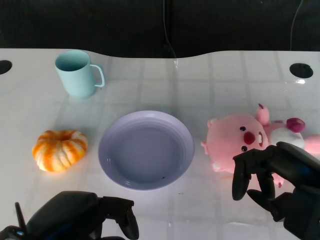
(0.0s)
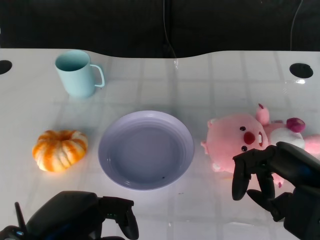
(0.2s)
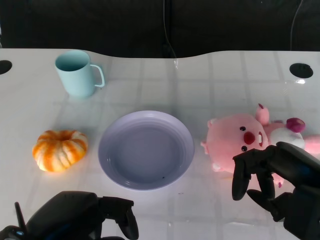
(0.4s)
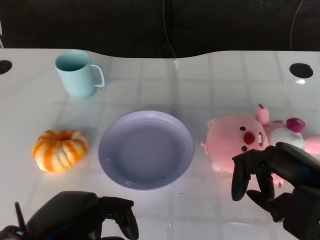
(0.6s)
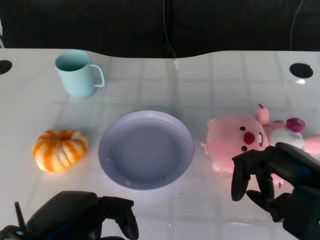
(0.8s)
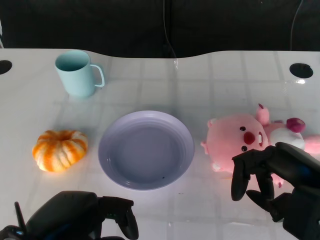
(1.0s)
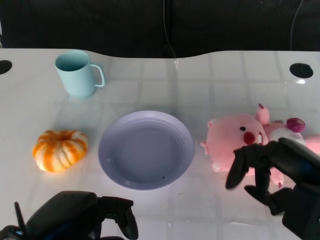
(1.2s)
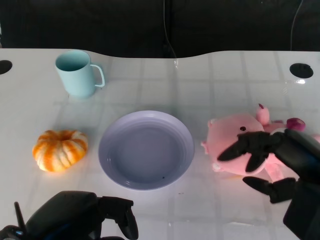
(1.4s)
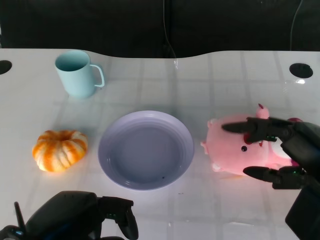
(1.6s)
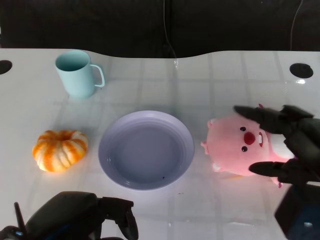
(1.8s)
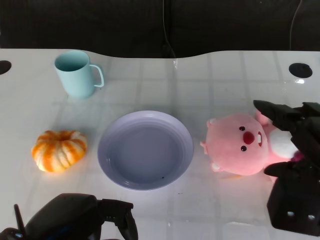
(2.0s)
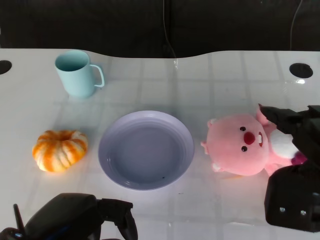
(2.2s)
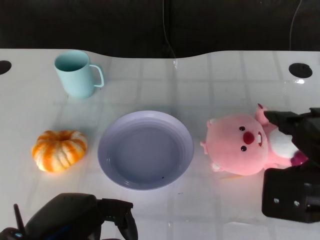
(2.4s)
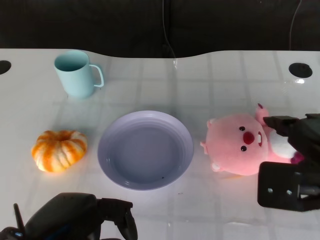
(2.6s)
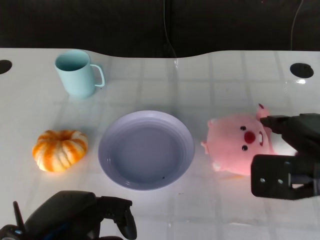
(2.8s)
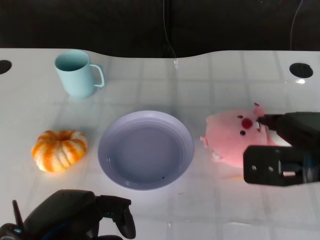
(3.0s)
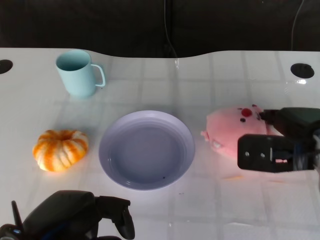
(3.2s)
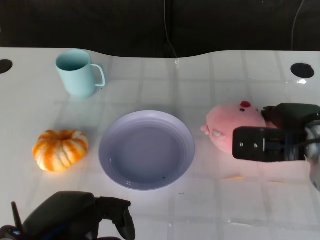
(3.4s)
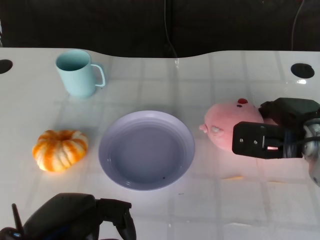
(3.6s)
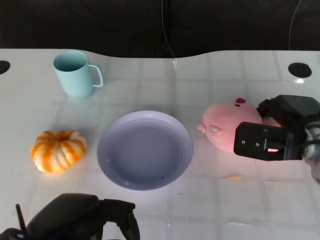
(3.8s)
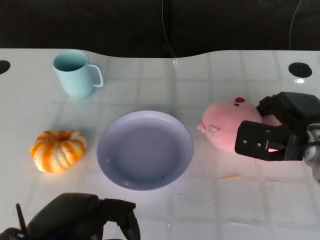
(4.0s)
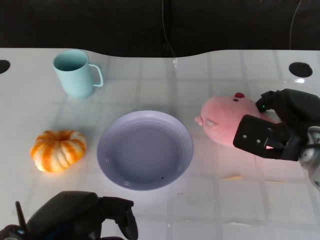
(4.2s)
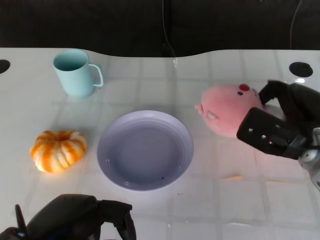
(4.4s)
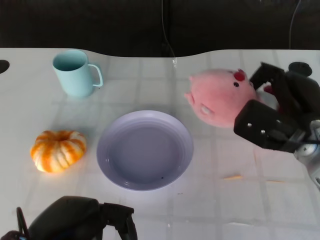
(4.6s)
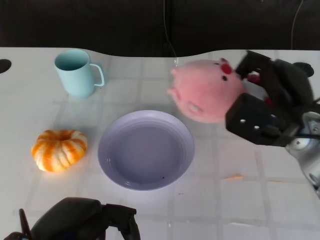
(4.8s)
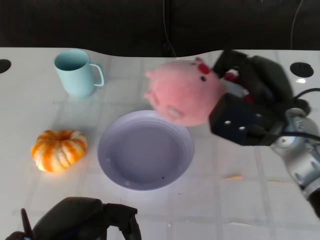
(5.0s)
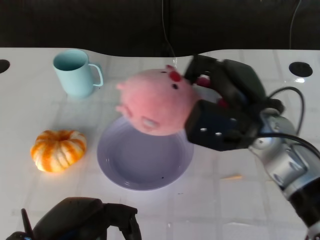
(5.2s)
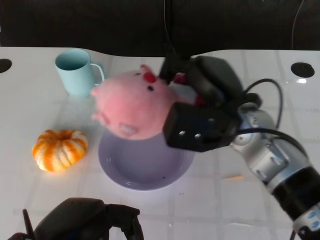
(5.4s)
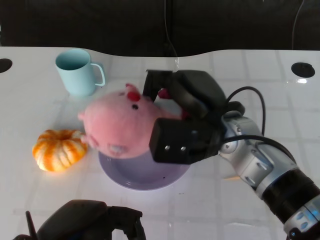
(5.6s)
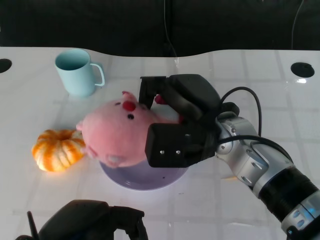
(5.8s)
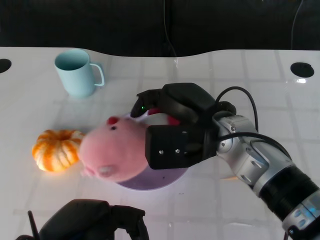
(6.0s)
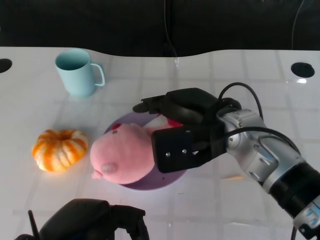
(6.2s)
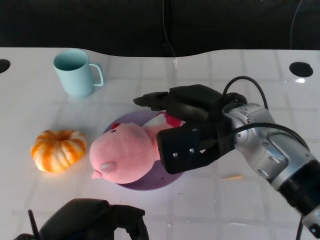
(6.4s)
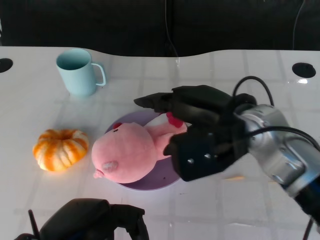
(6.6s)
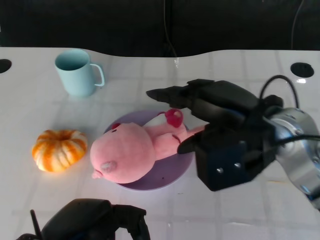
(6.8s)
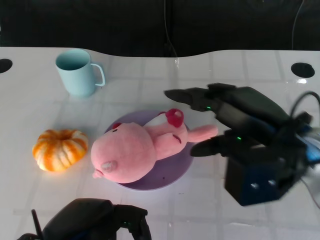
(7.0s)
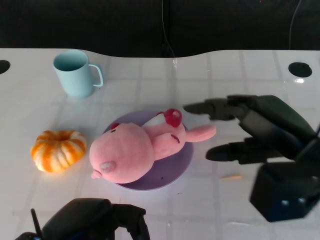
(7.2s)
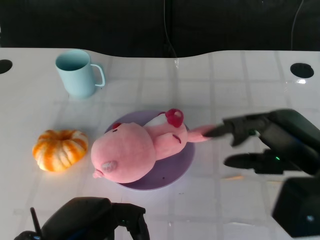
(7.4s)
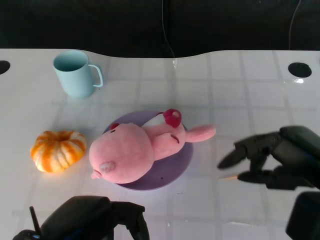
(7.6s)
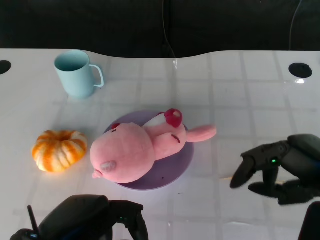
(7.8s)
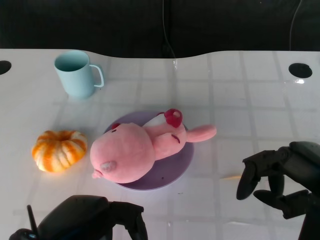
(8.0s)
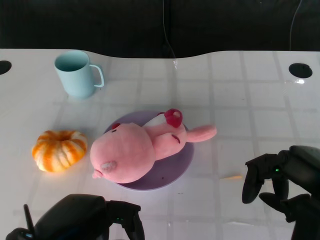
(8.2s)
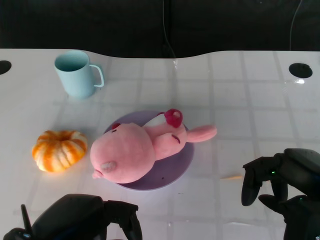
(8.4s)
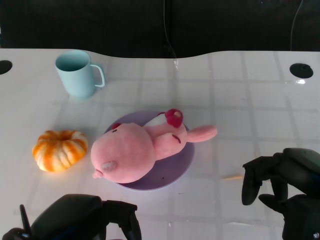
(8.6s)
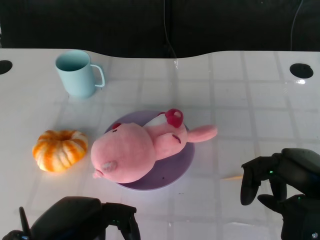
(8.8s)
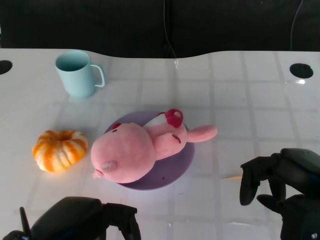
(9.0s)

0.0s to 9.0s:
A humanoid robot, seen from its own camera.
Task of the whole recording: Pick up the doll on the other side of the plate and place it into the plate.
Step, 1.2s to 4.6s: Grasp the pink doll with the right gripper.
Step, 5.0s to 6.8s: Place the pink doll into the plate with the right gripper.
1.6s to 3.0s: The right hand goes roughly 5 cm forward.
3.0s to 4.4s: The right hand goes some 5 cm downward.
4.4s to 6.0s: The right hand heads to the left and upward, covering approximately 15 cm.
6.0s to 7.6s: The right hand is displaced to the right and backward by some 20 cm.
7.6s to 9.0s: The hands move only a little.

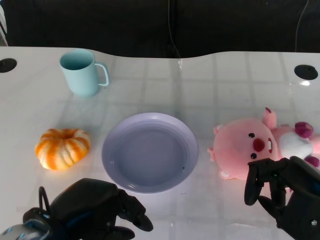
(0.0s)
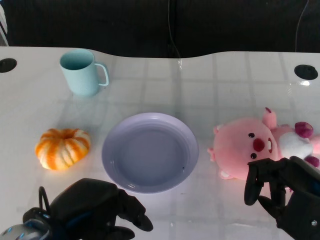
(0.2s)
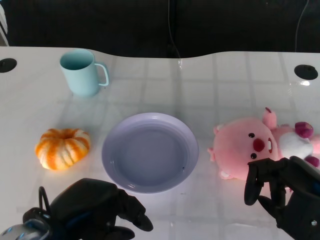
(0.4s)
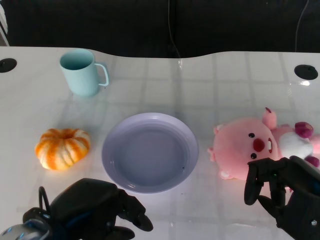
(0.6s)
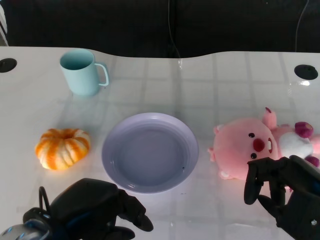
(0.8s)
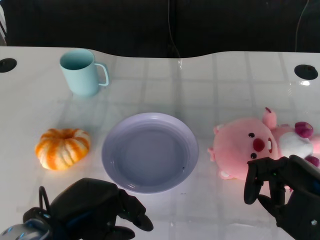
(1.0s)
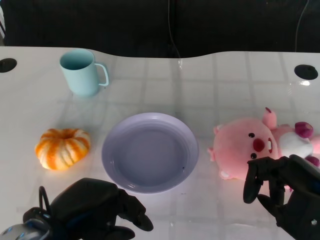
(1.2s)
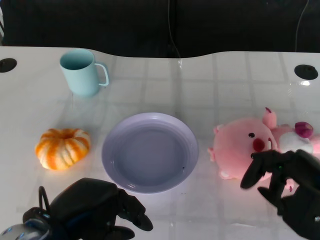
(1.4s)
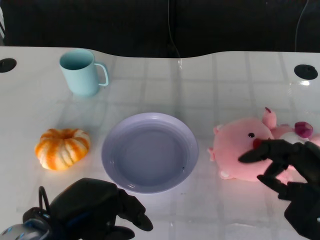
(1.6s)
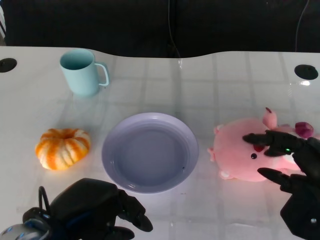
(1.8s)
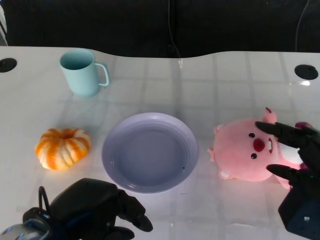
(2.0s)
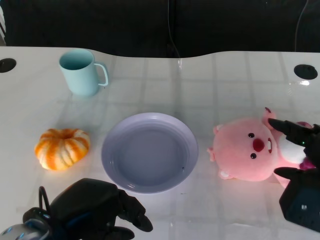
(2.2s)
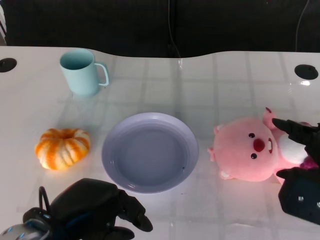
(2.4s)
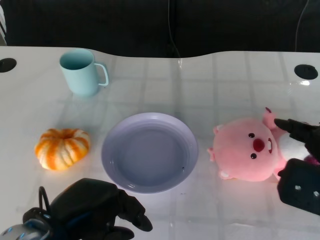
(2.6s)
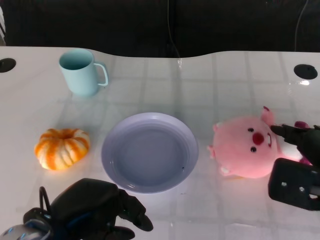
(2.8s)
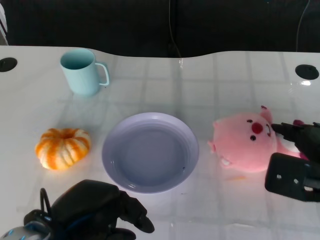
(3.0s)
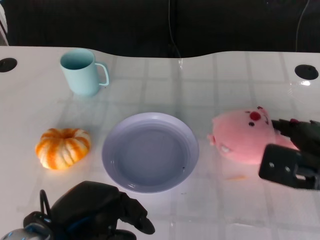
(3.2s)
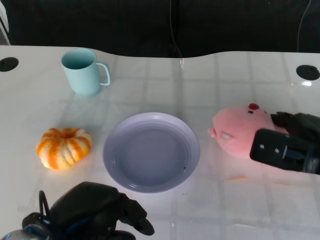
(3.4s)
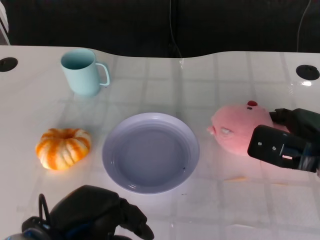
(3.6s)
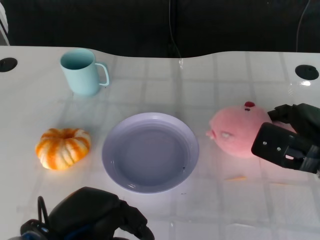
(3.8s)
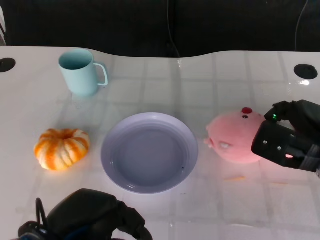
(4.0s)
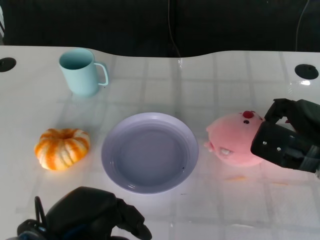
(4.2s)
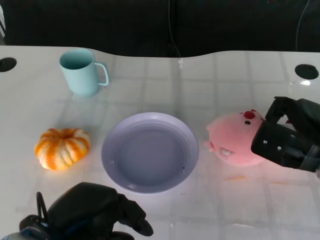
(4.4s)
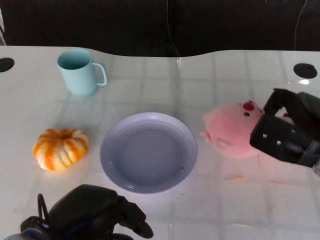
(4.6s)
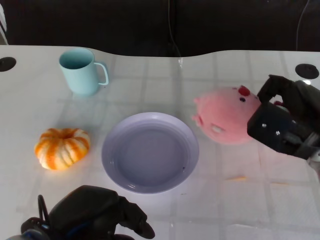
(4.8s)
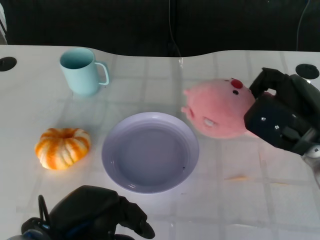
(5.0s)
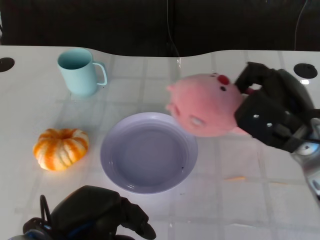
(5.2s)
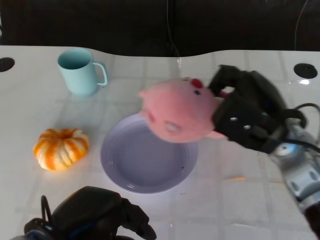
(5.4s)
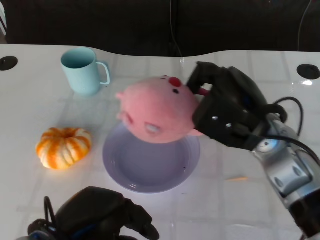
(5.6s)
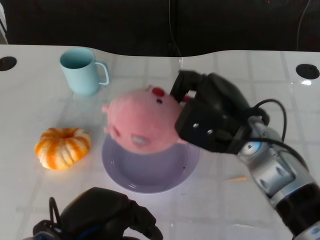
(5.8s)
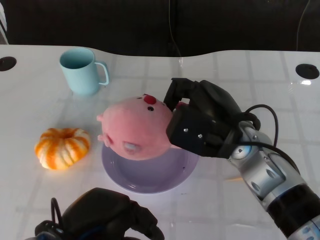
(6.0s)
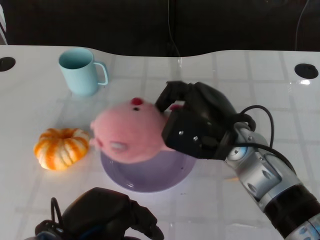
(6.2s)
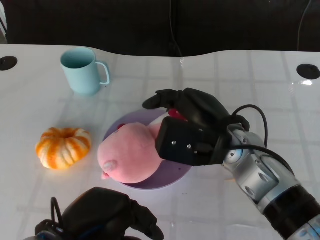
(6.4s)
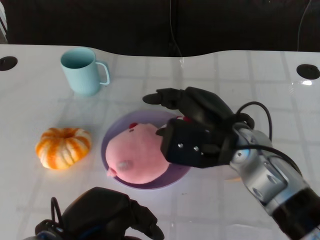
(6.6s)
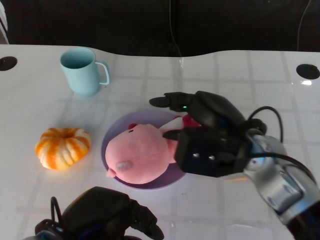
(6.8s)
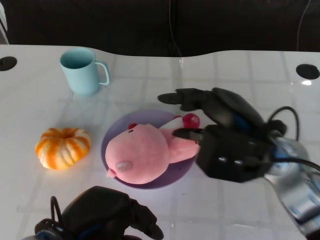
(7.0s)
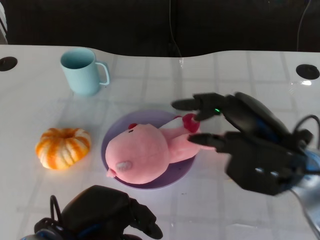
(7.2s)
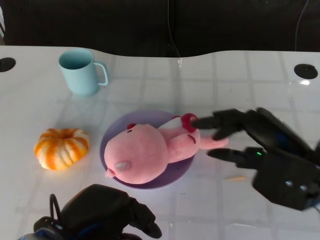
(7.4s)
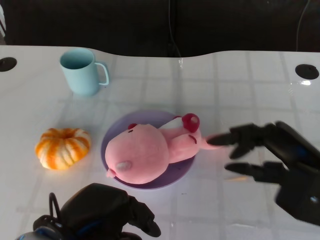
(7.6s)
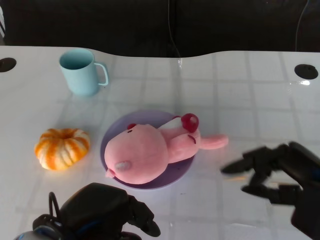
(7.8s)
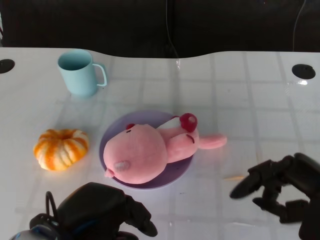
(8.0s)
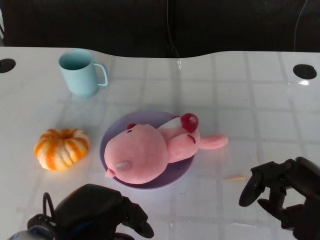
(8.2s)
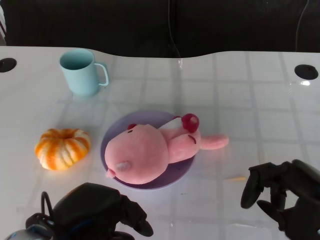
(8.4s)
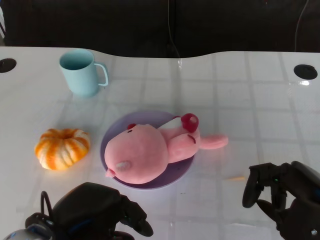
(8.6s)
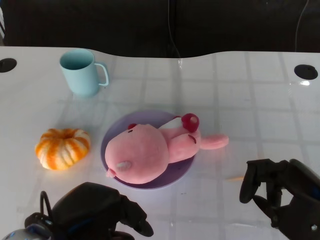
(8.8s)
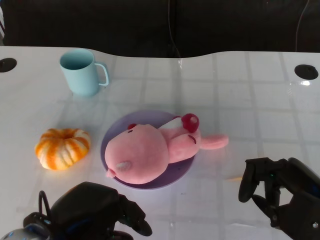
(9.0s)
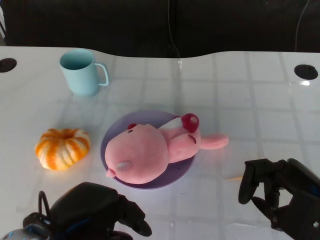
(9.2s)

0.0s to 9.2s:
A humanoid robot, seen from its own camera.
Task of the whole recording: Pick up the doll on the other side of the plate and place it into the plate.
Step, 1.2s to 5.0s: Grasp the pink doll with the right gripper.
Step, 5.2s to 7.2s: Place the pink doll into the plate with the right gripper.
1.6s to 3.0s: The right hand heads forward, covering approximately 5 cm.
3.0s to 4.6s: The right hand is displaced forward by roughly 5 cm.
4.6s to 6.2s: The right hand shifts some 15 cm to the left.
6.2s to 7.6s: The right hand heads to the right and backward, covering roughly 15 cm.
7.6s to 9.2s: The hands move only a little.

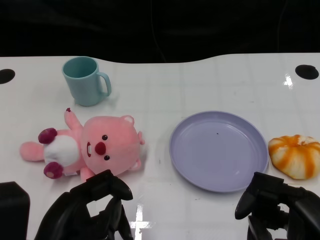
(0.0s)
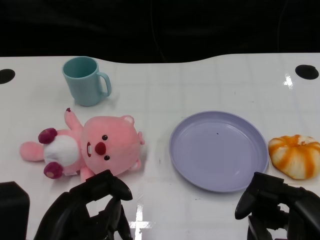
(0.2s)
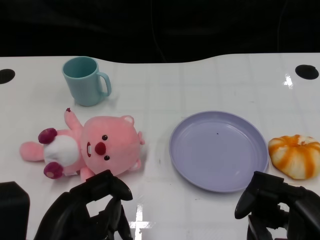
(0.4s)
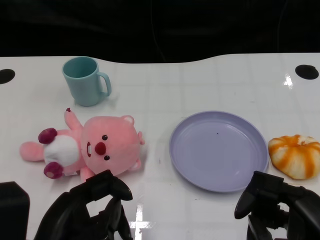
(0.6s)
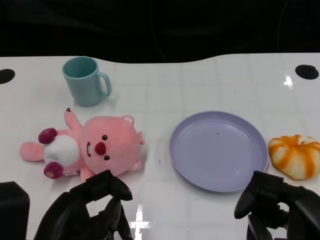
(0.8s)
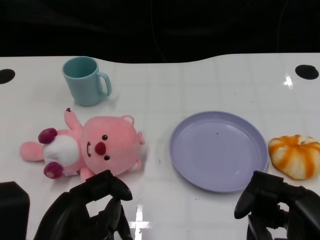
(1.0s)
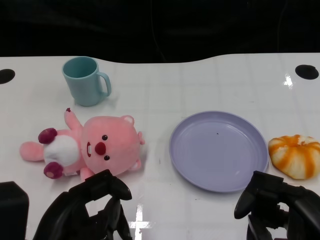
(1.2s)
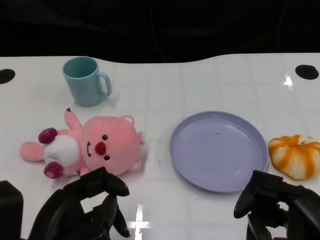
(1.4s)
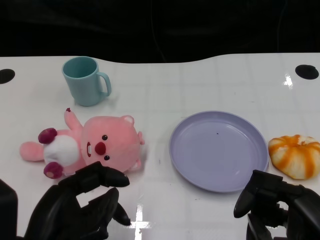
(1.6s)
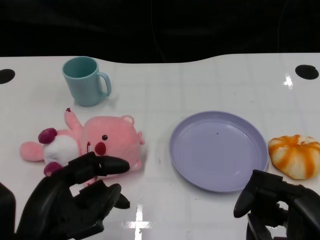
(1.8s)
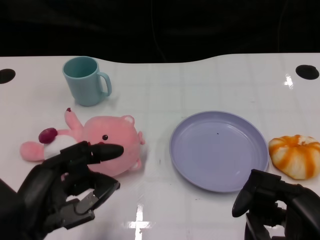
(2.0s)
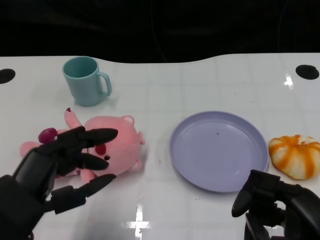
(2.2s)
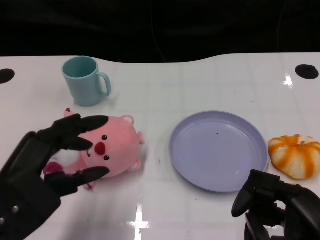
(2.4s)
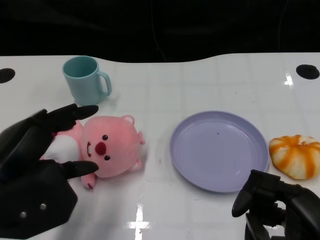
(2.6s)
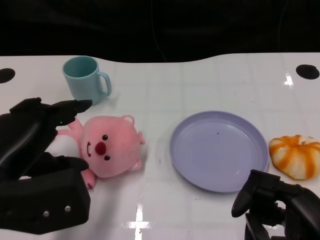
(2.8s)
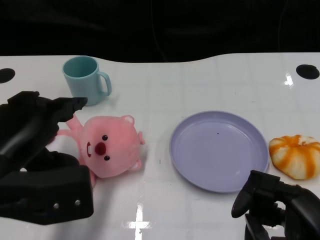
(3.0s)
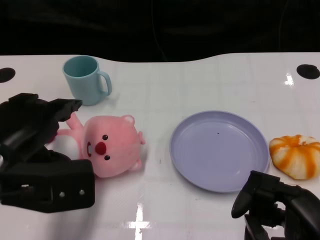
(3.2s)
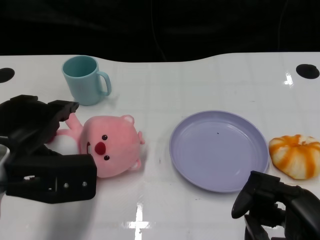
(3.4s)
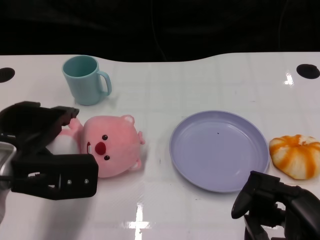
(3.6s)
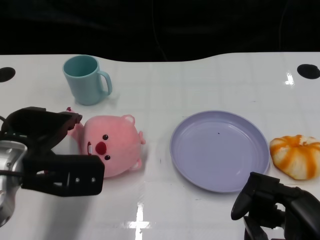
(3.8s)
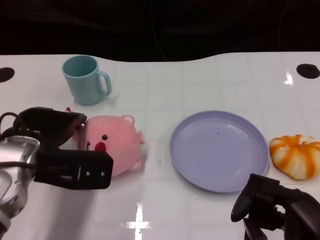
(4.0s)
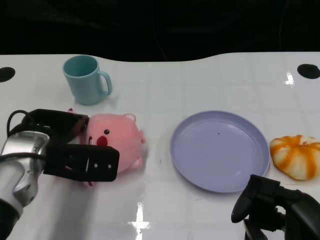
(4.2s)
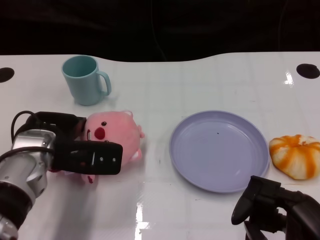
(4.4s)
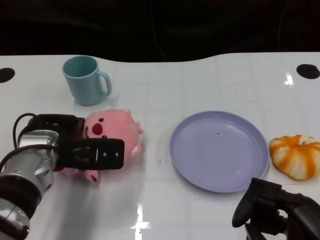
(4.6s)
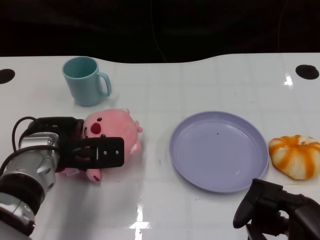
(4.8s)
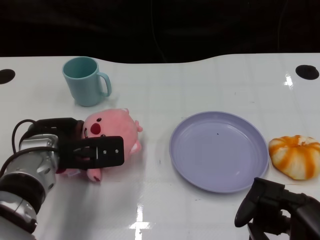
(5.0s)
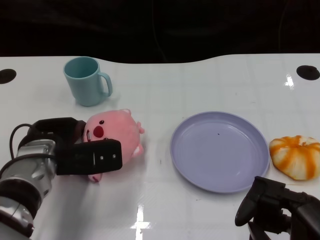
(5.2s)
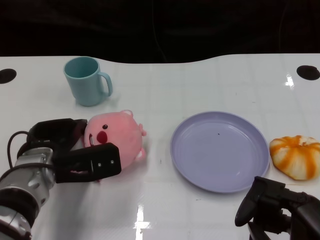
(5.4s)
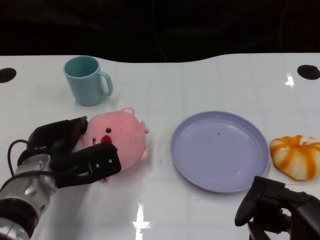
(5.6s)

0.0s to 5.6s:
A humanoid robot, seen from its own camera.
Task of the whole recording: Pick up the doll on one side of the plate and place it into the plate.
1.4s to 2.8s: The left hand moves upward and forward, about 10 cm.
2.8s to 4.2s: The left hand travels forward and downward by about 10 cm.
4.2s to 5.6s: The left hand goes approximately 5 cm downward.
